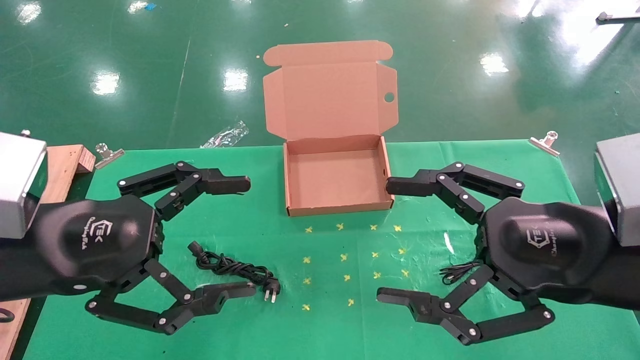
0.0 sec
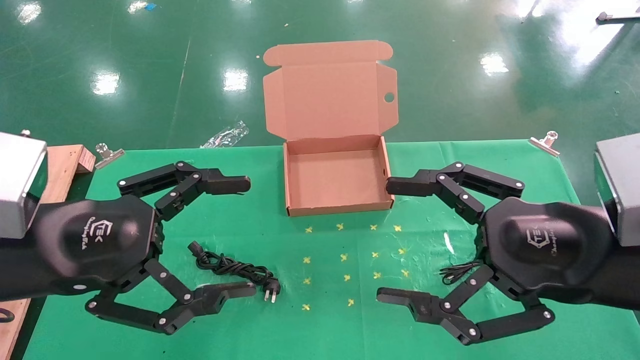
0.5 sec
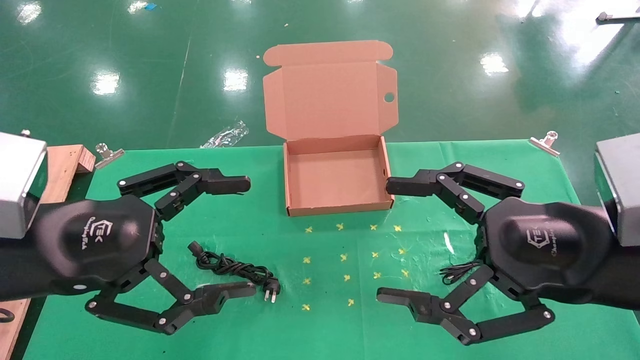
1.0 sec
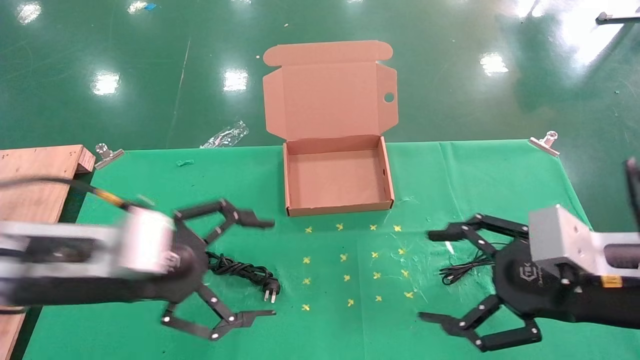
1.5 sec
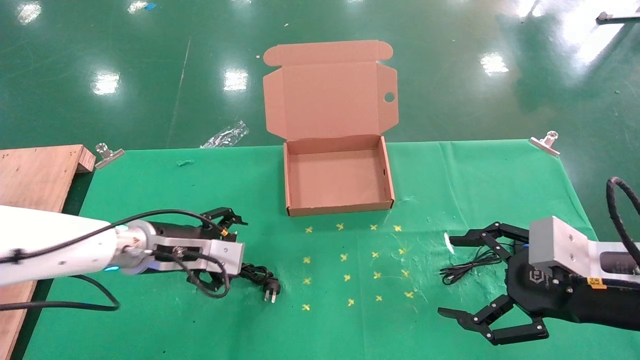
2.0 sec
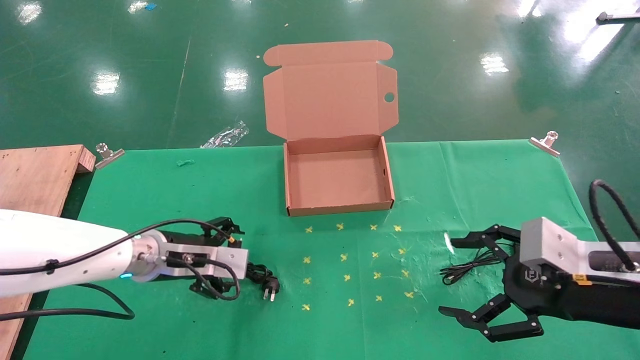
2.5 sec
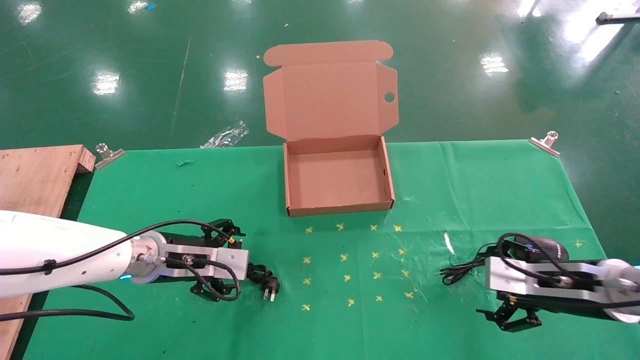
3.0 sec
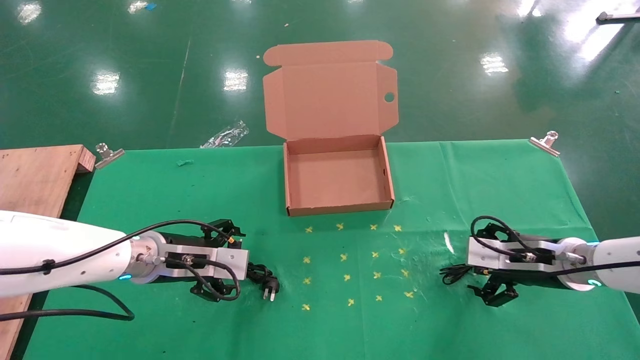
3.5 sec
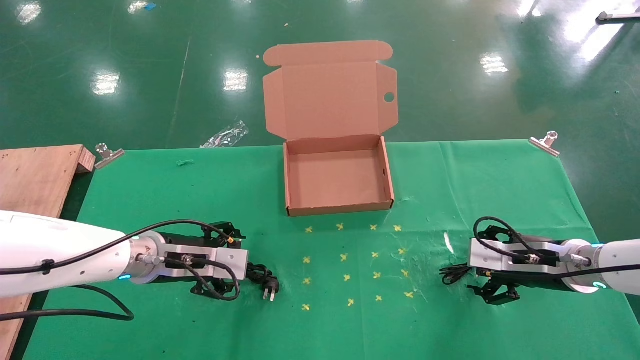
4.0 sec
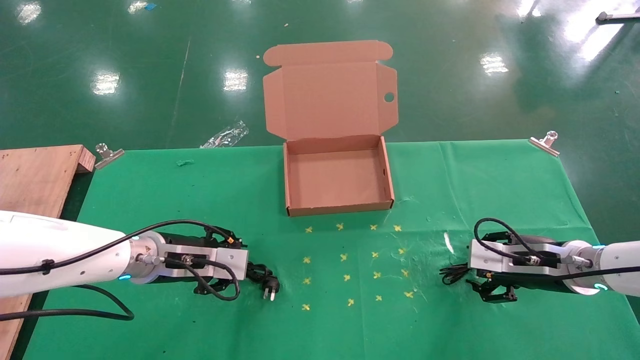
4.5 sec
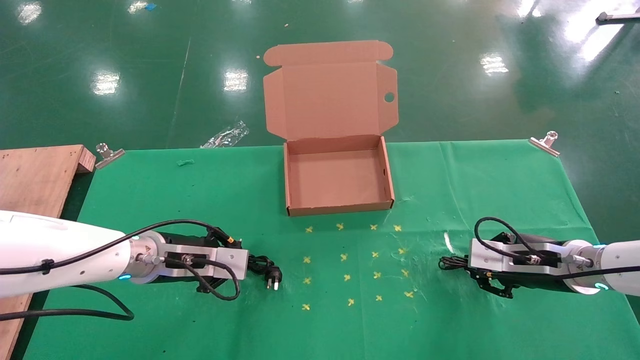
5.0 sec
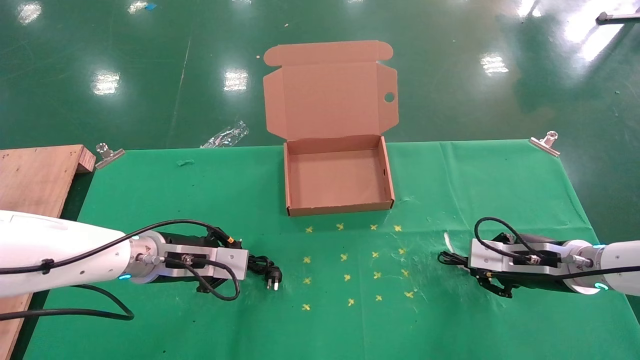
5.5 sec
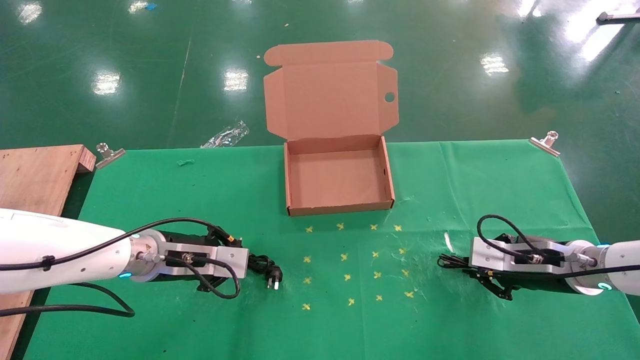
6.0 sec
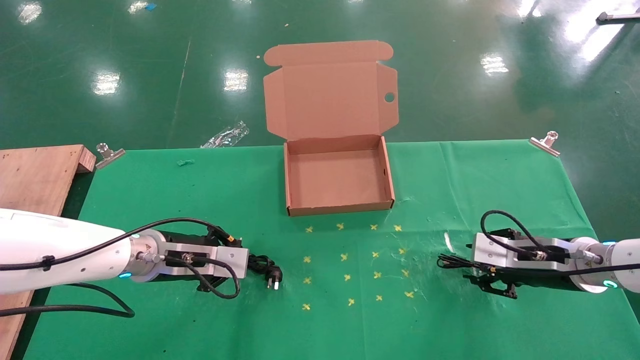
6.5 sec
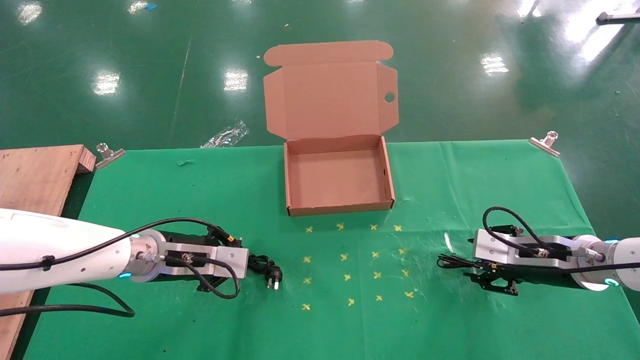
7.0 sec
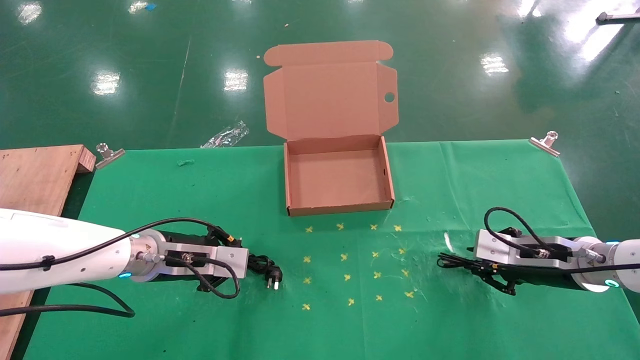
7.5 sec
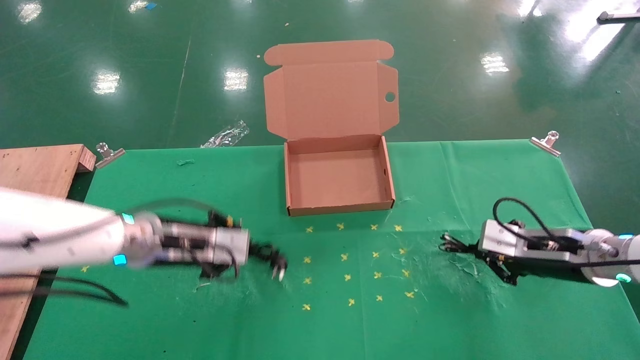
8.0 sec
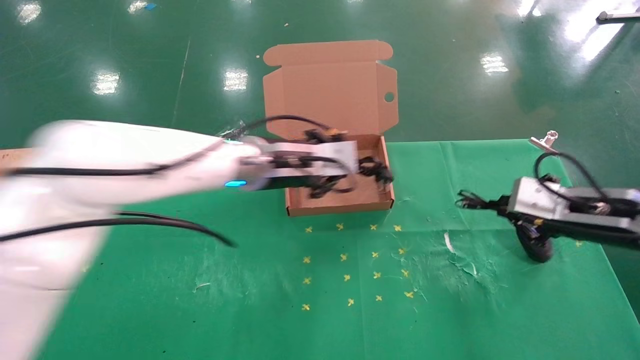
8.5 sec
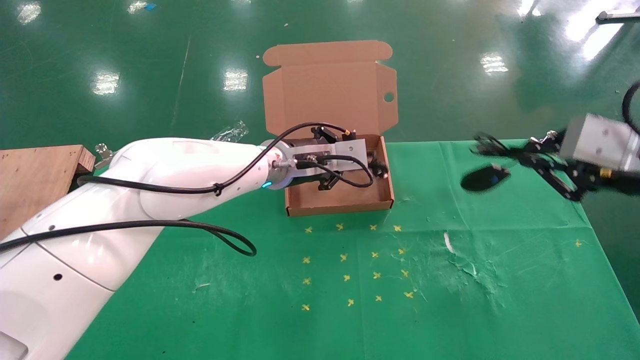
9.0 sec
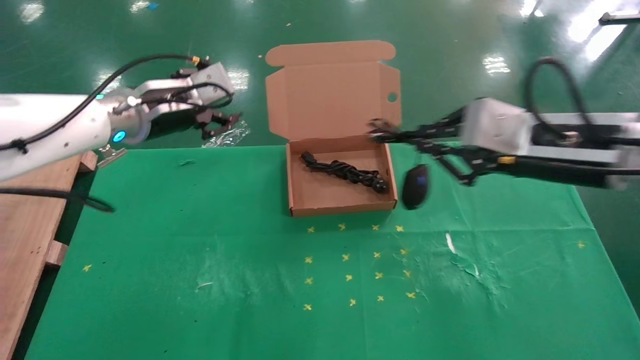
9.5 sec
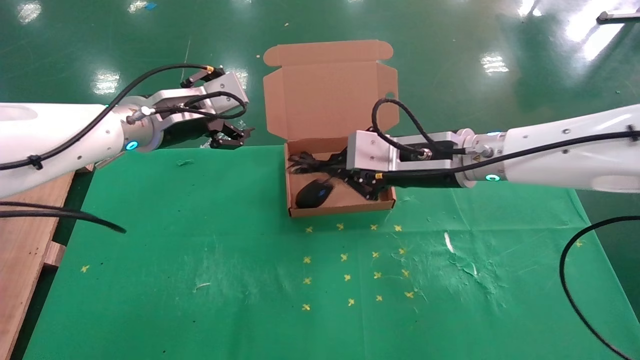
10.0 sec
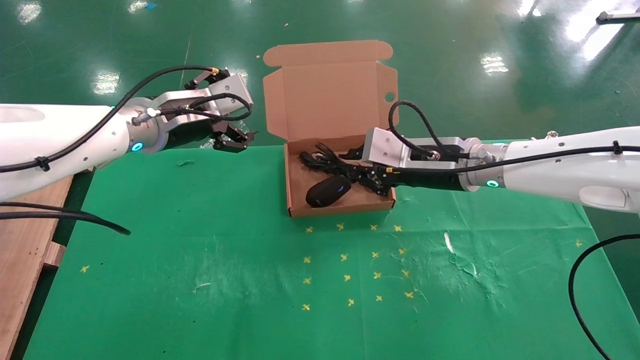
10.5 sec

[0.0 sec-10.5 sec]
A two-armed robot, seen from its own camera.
Task of the whole recording: grasp data cable left put into box grasp mouse right put into box.
Step, 1.5 sec to 8.0 sec: Simultaneously pick up the mouse and power cord from the accessory packaging area.
0.0 sec to 2.0 sec: The right gripper is displaced downward and to the right by some 10 cm; the left gripper is displaced forward and downward by some 20 cm.
2.0 sec to 4.0 sec: The right gripper shifts some 15 cm forward and downward.
4.0 sec to 6.5 sec: The right gripper closes up, while the left gripper closes its fingers.
6.5 sec to 8.5 sec: The right gripper is displaced upward by approximately 10 cm, and closes. Meanwhile the left gripper shifts about 20 cm to the right and upward.
8.5 sec to 10.5 sec: The right gripper is displaced to the left and forward by roughly 20 cm. Meanwhile the left gripper shifts about 15 cm to the left and upward, and opens its fingers.

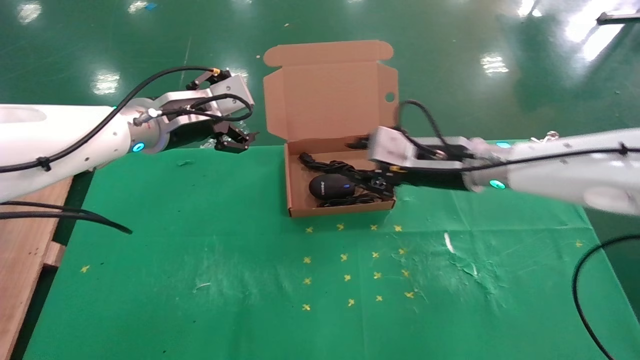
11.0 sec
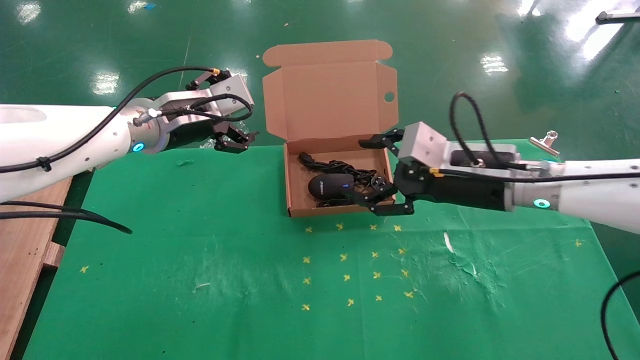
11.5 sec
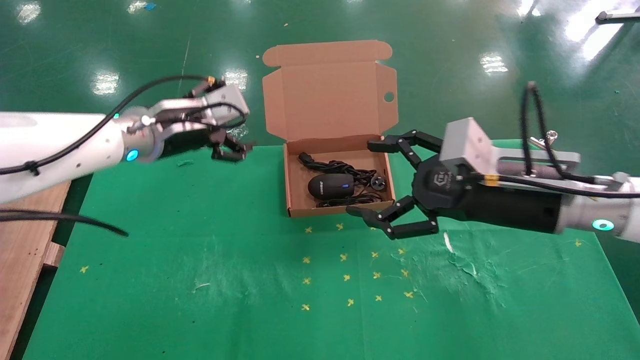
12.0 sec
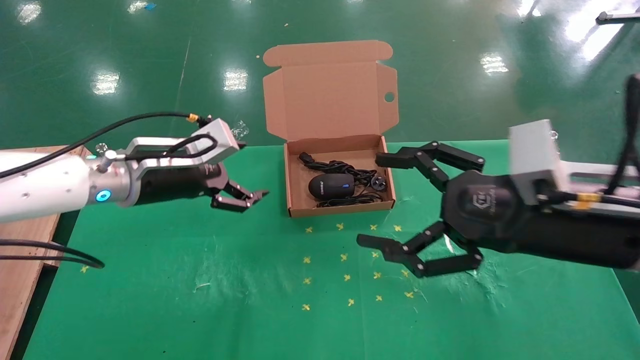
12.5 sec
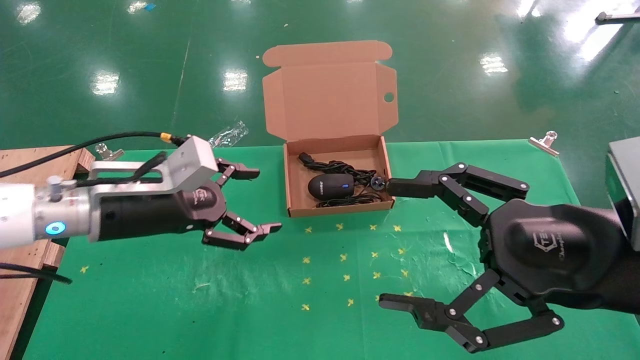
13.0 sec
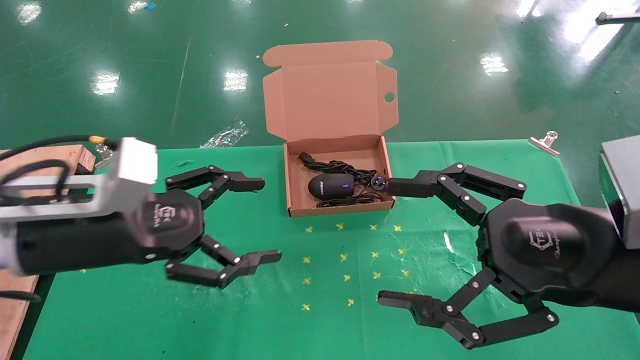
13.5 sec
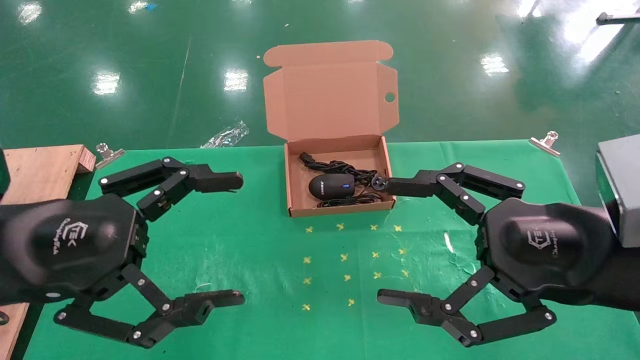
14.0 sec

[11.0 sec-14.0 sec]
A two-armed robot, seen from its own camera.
Task of the whole recording: grasp data cable left put into box grasp mouse right put into box.
11.0 sec to 12.5 sec: The right gripper shifts approximately 15 cm backward and to the right, and opens up, while the left gripper is displaced downward by about 5 cm.
12.5 sec to 14.0 sec: The right gripper moves backward, approximately 5 cm; the left gripper is displaced backward by approximately 15 cm.
